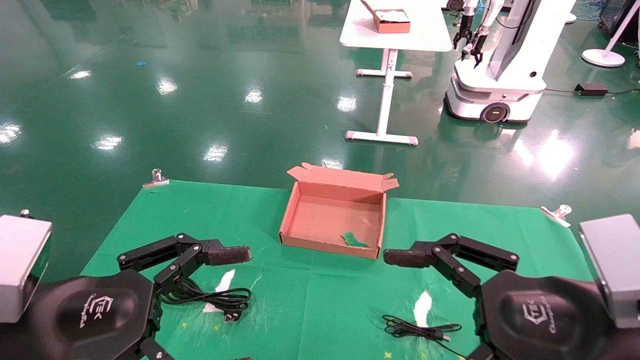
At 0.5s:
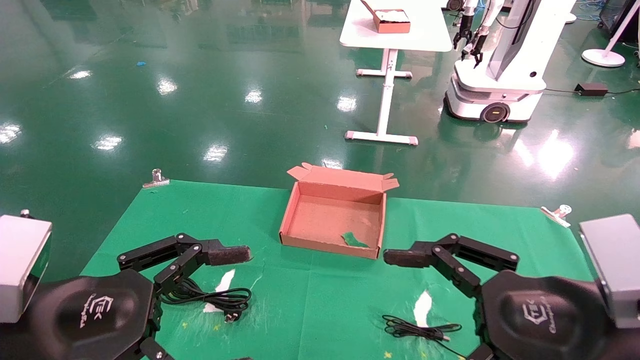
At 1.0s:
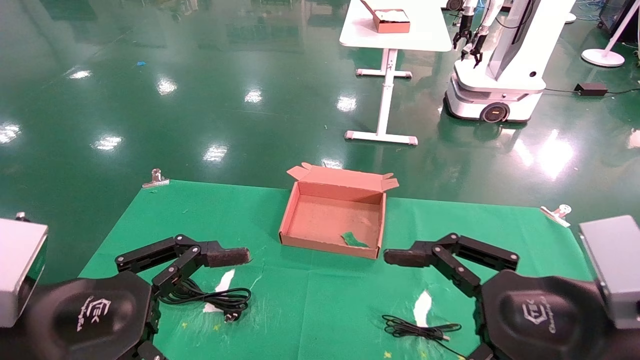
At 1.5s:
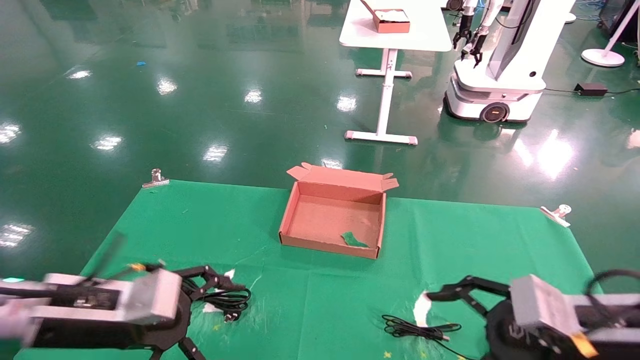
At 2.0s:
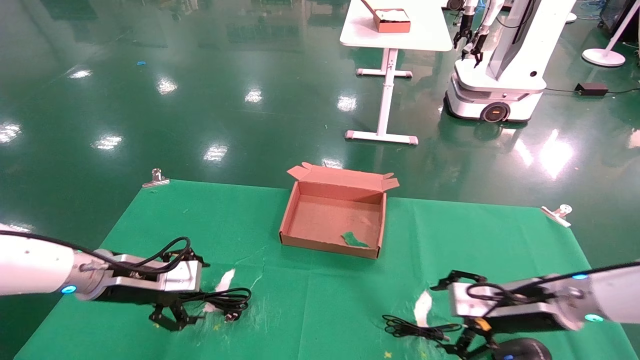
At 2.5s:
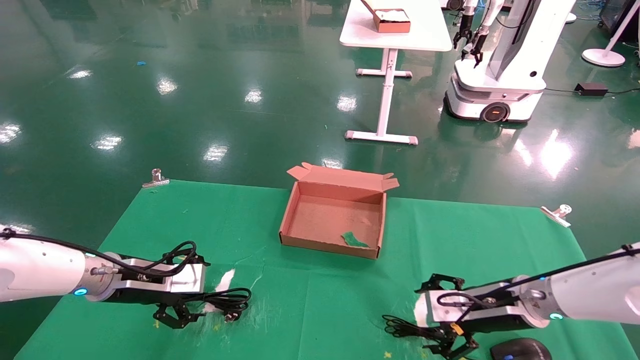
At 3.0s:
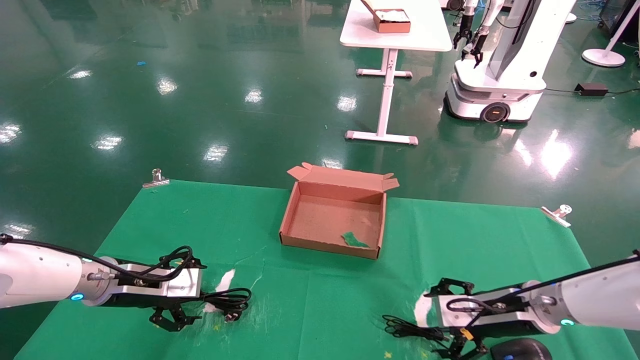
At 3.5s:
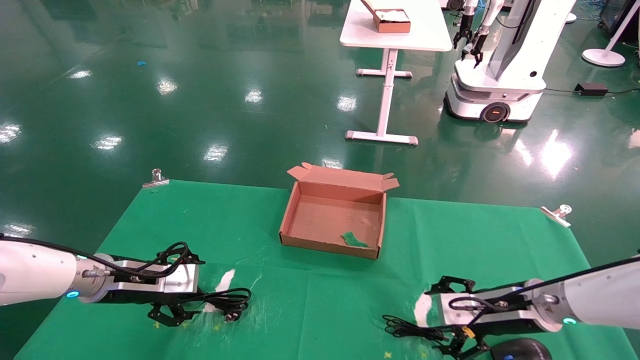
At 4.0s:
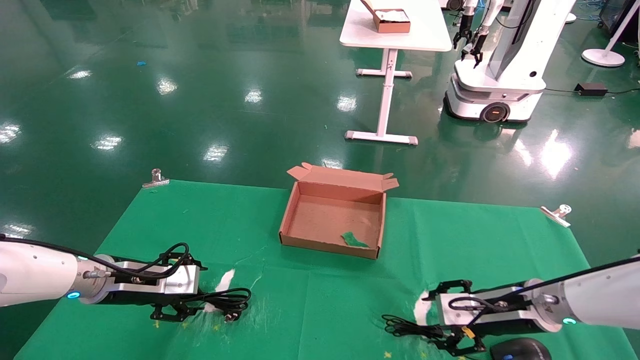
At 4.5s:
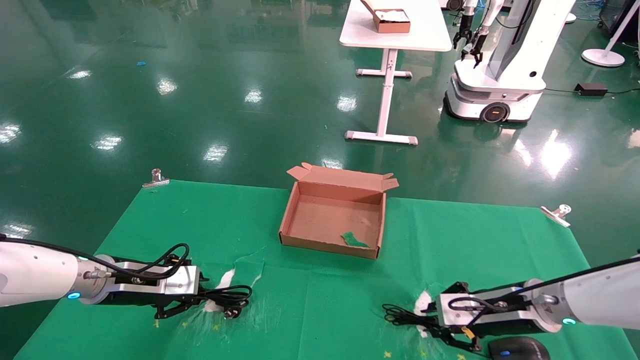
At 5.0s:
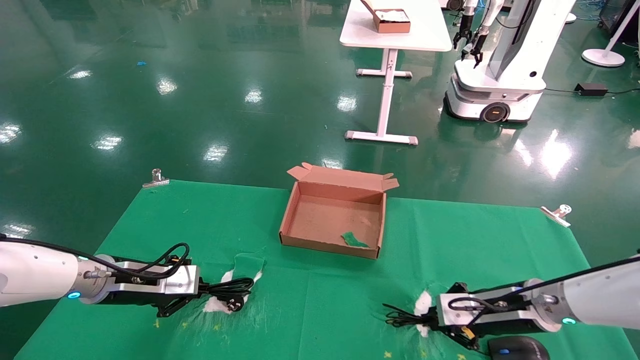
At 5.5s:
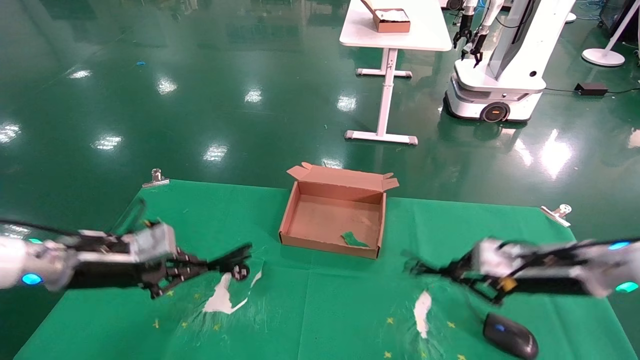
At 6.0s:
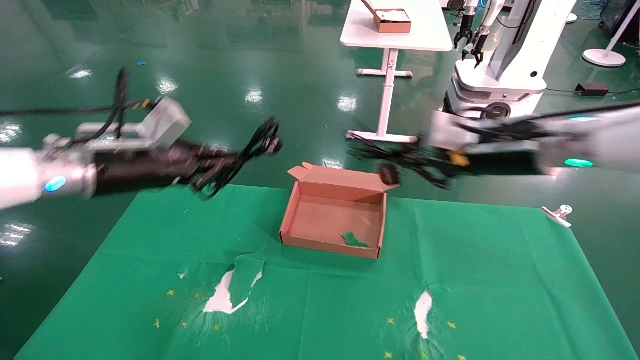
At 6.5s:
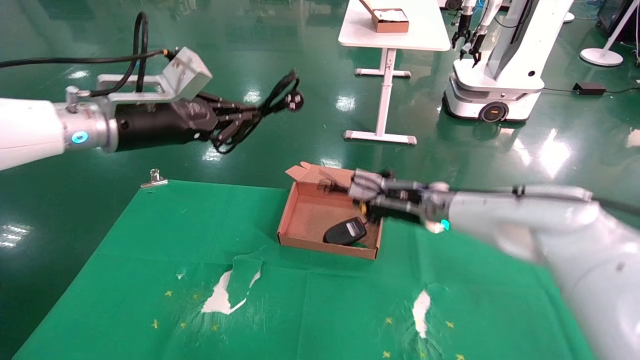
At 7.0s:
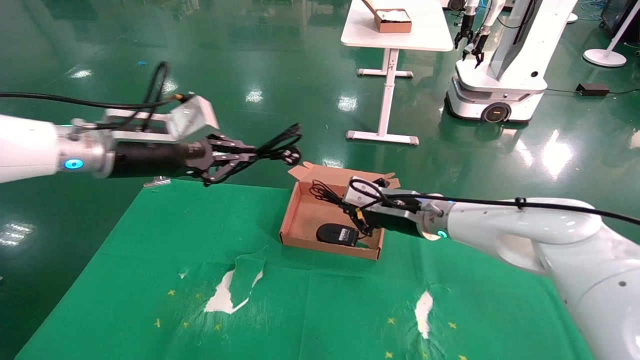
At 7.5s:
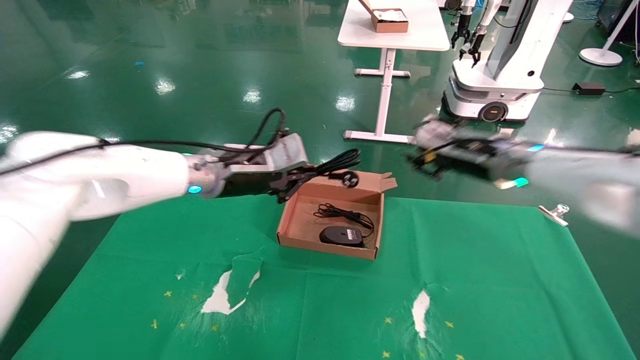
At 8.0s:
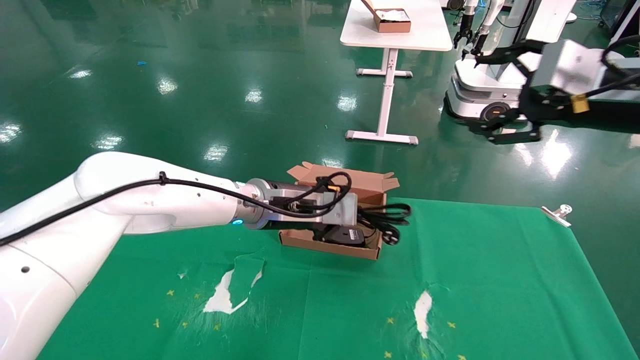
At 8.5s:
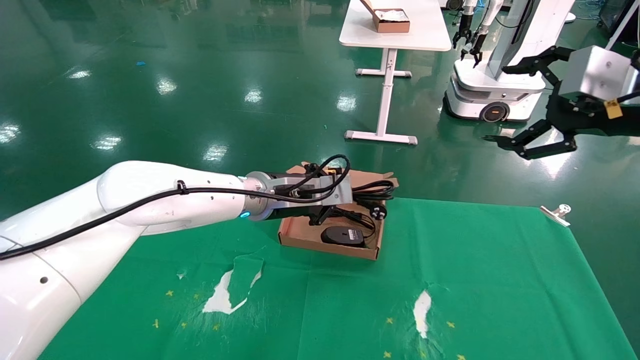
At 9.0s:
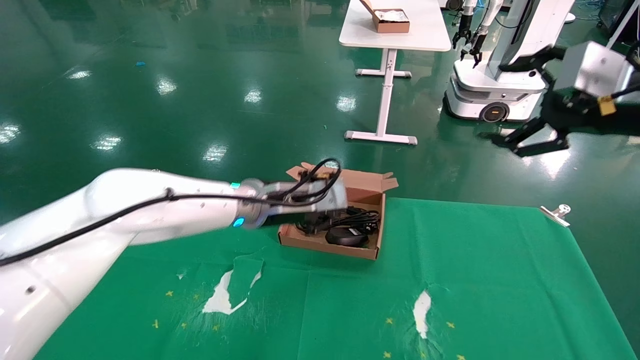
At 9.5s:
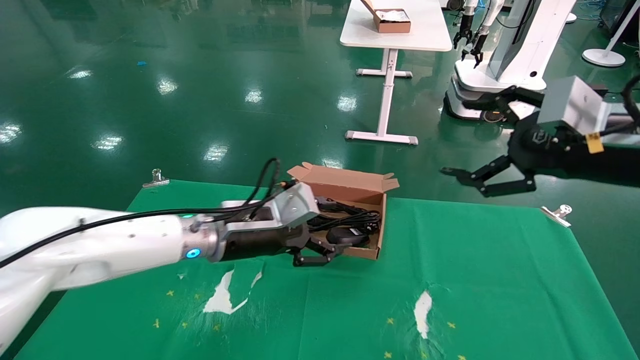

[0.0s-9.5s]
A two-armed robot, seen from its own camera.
Step, 1.5s to 5.0s: Grab and lift both the mouse and power cord from the accessory packaging area at the same time.
Step, 5.5s to 9.0s: Place the mouse and power cord into the box.
0.0s to 2.0s: The left gripper goes roughly 20 cm forward, while the right gripper is displaced forward and downward by about 25 cm.
2.0s to 4.0s: The grippers make only small movements.
4.0s to 5.5s: The right gripper shifts approximately 10 cm upward, and closes its fingers. Meanwhile the left gripper moves upward, some 5 cm, and closes.
5.5s to 7.5s: The left gripper shifts approximately 20 cm to the right and upward; the right gripper is displaced upward, to the left and forward by roughly 15 cm.
7.5s to 9.5s: The left gripper shifts roughly 10 cm downward and backward, and opens; the right gripper heads backward and to the right, covering some 15 cm, and opens.

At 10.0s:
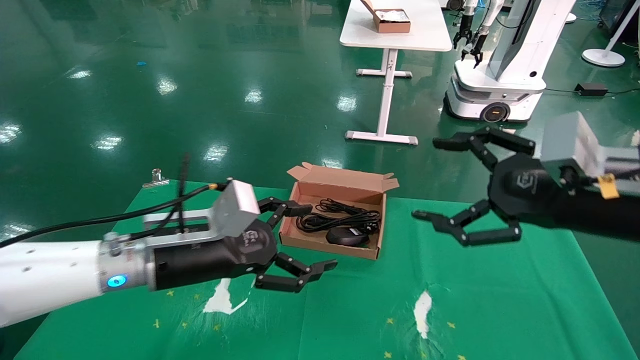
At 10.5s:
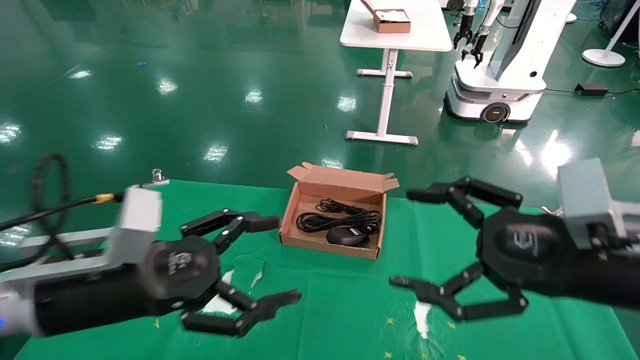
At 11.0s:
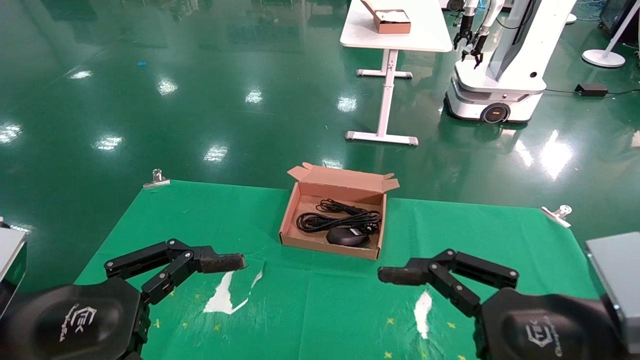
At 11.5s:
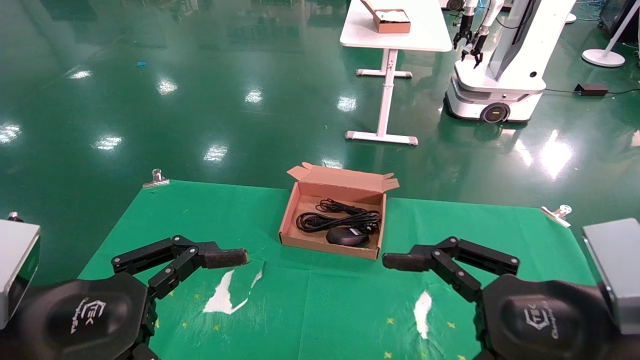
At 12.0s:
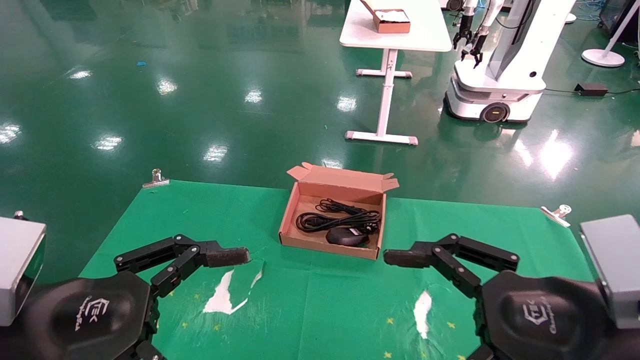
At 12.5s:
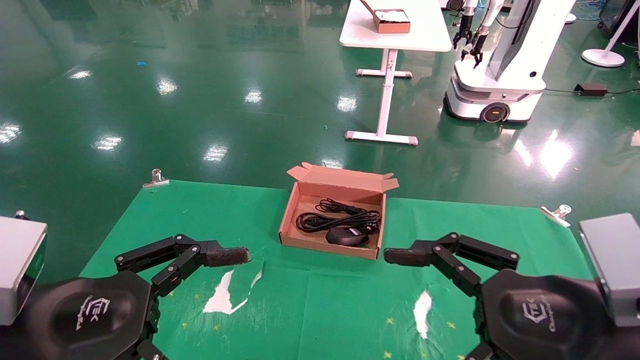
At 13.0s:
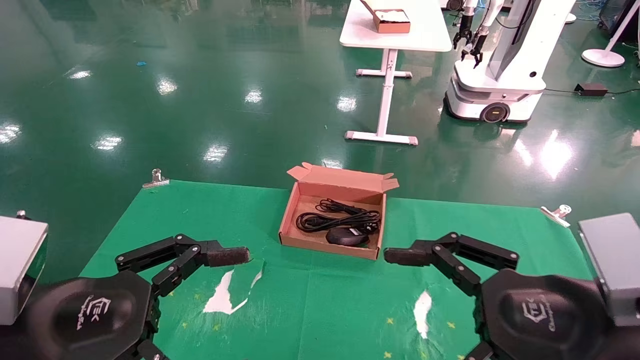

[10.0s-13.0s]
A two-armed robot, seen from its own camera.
10.0s to 11.5s: The right gripper heads backward and downward, covering some 10 cm; the left gripper is displaced backward and to the left by approximately 20 cm.
11.5s to 13.0s: The two grippers keep their place.
